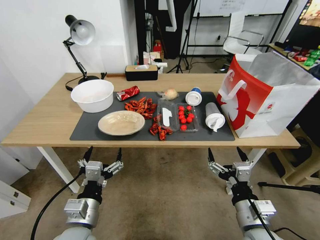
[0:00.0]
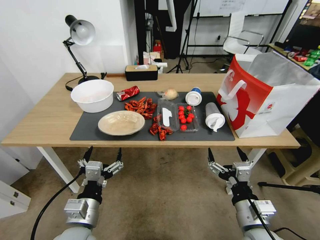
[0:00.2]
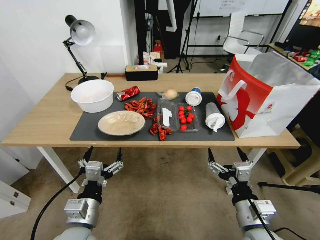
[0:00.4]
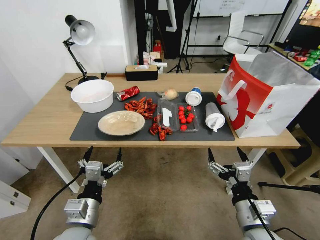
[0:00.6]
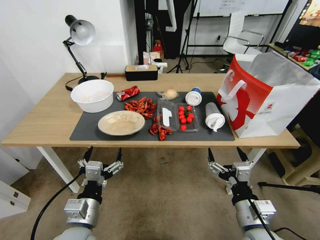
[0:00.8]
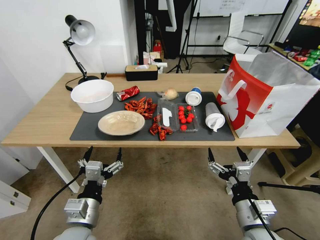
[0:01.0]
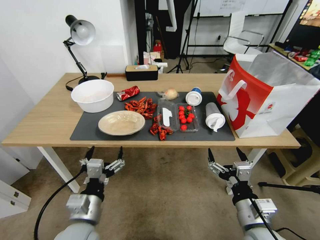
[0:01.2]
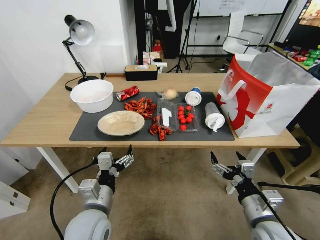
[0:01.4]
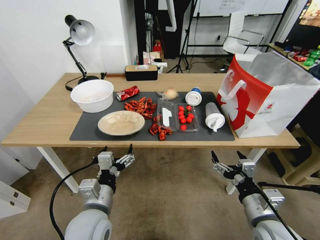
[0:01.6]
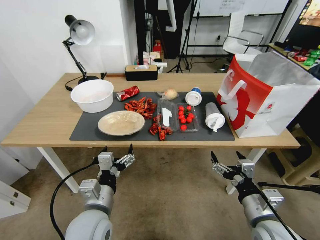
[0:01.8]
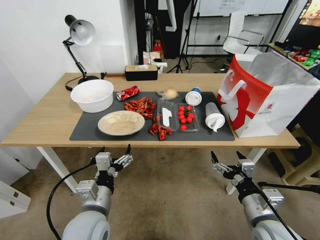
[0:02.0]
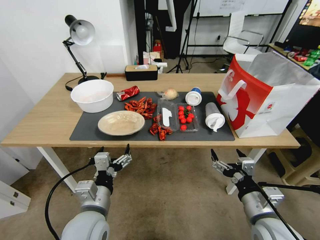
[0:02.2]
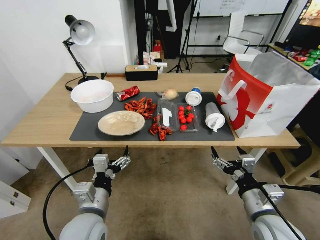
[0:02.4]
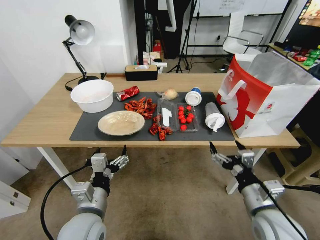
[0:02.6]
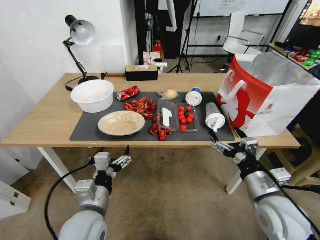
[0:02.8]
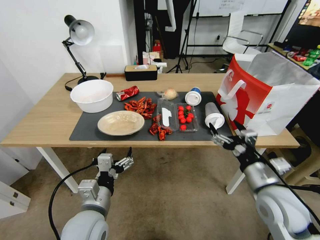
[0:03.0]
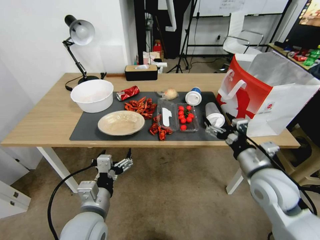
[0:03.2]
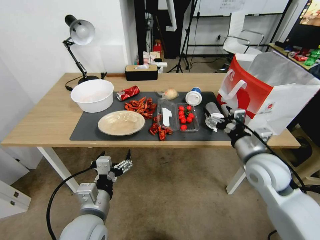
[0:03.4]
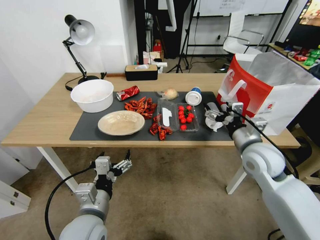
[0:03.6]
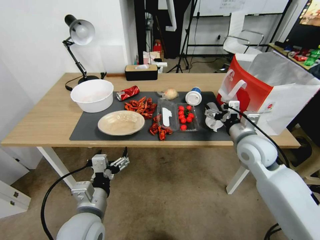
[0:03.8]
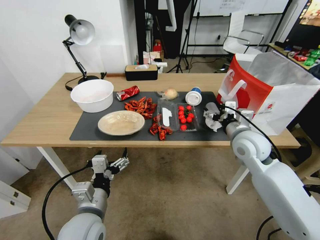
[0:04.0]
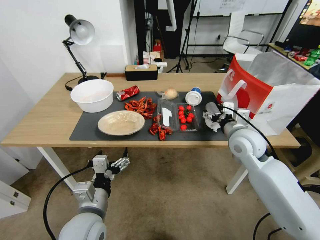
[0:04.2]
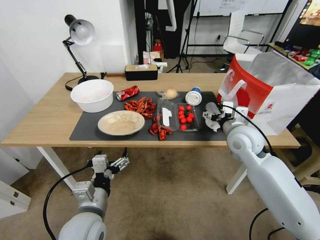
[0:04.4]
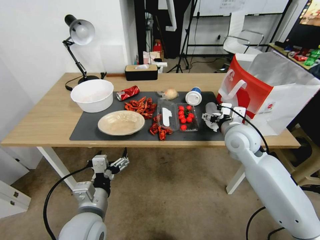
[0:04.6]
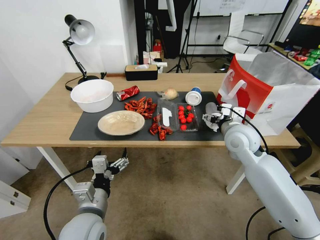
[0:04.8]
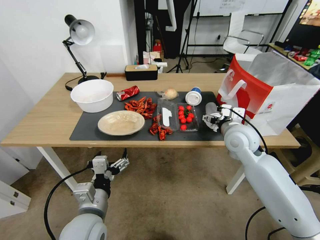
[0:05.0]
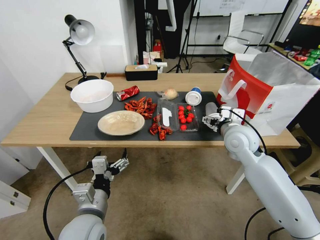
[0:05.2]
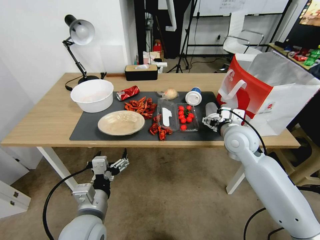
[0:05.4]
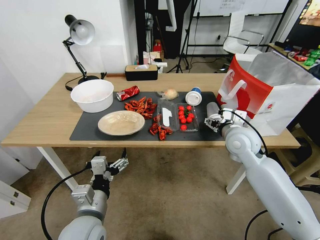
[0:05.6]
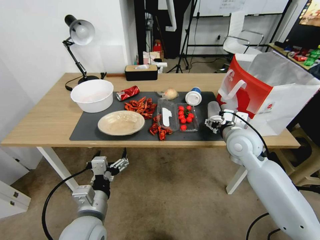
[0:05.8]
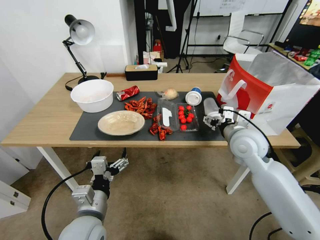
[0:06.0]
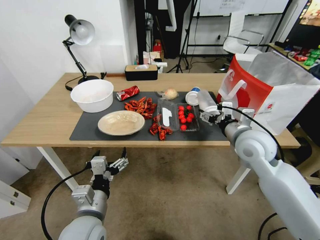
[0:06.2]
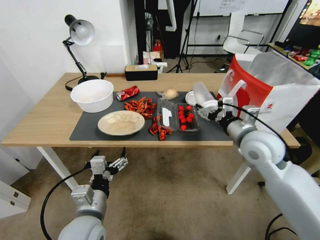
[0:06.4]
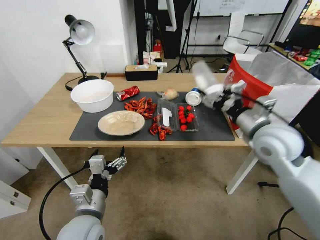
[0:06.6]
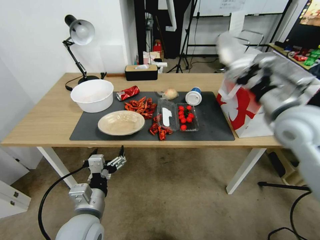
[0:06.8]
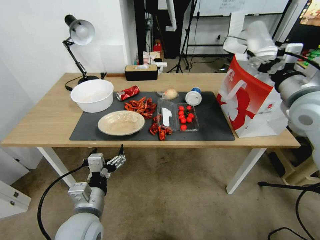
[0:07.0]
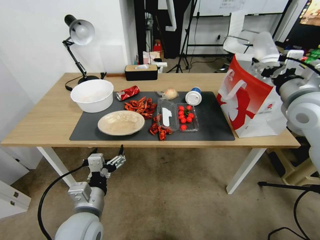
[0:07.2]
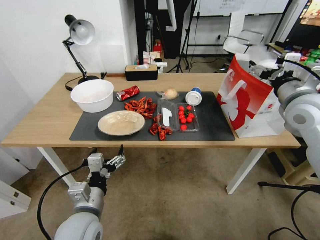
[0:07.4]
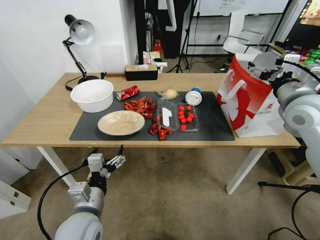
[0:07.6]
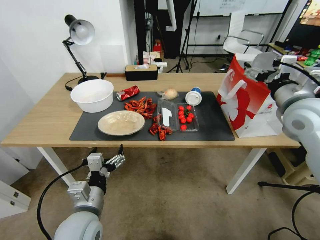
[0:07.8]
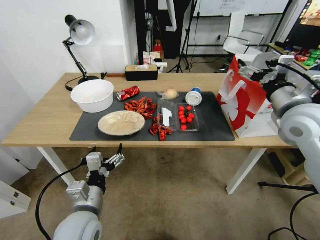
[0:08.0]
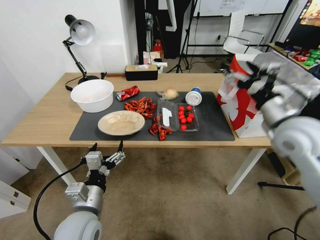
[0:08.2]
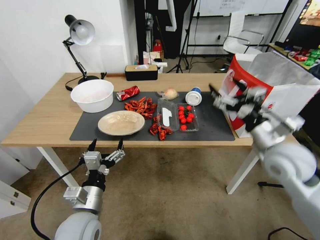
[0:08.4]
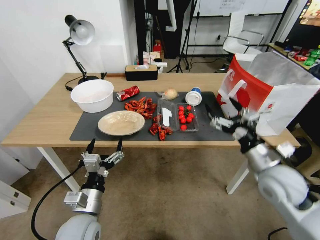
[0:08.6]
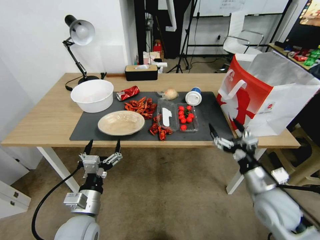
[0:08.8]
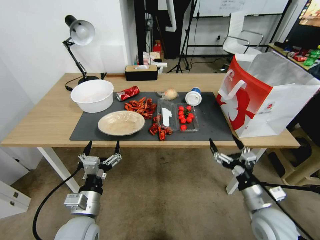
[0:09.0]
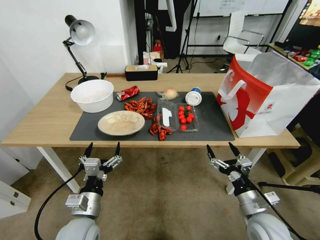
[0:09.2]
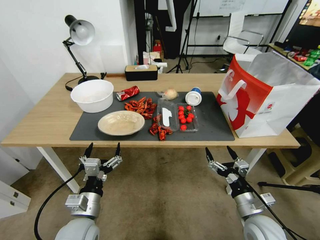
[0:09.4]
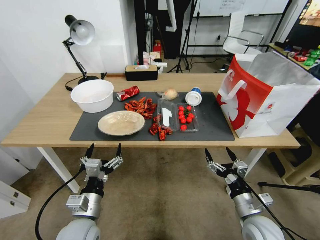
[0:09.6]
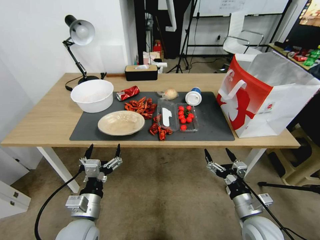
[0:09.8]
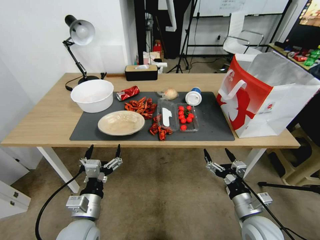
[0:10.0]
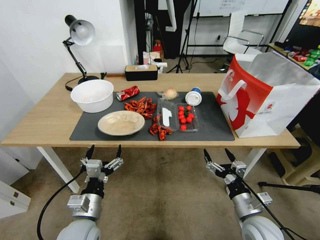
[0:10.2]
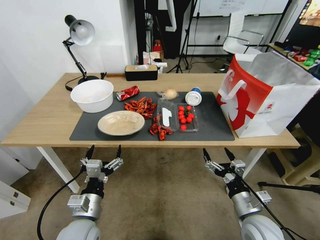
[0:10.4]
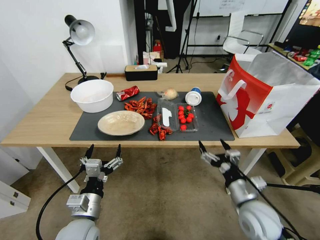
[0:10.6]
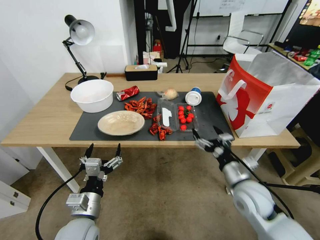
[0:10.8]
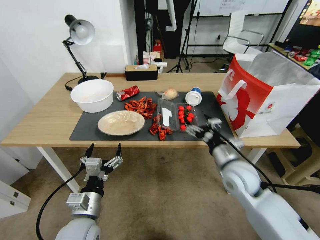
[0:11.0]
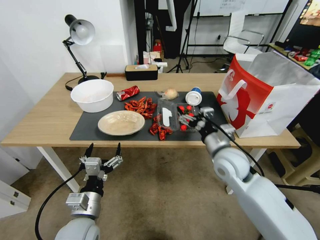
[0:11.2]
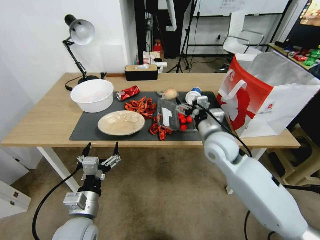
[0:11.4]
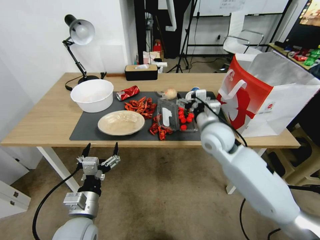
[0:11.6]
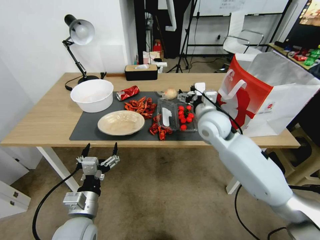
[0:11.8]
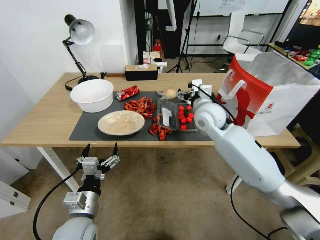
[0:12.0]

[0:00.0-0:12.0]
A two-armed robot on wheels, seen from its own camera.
0:01.6 to 0:03.0: The right gripper heads forward, covering about 5 cm.
0:03.0 to 0:04.4: The right gripper shifts about 15 cm forward.
0:04.4 to 0:06.0: The grippers move only a little.
0:06.0 to 0:07.6: The right gripper is displaced upward and to the right by approximately 15 cm.
0:07.6 to 0:09.0: The right gripper moves downward and backward, approximately 30 cm.
0:09.0 to 0:10.4: The grippers move only a little.
0:10.4 to 0:12.0: The right gripper moves forward, upward and to the left, approximately 35 cm.

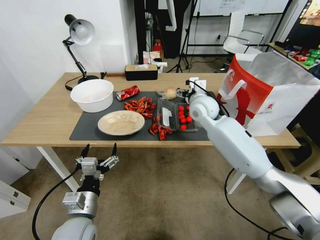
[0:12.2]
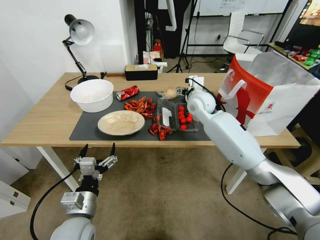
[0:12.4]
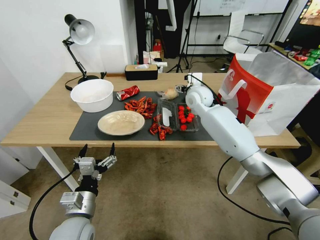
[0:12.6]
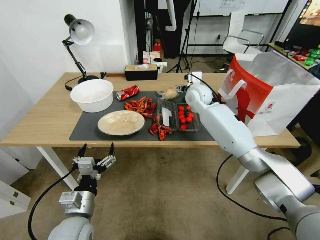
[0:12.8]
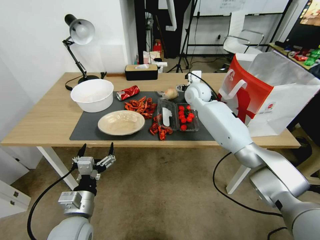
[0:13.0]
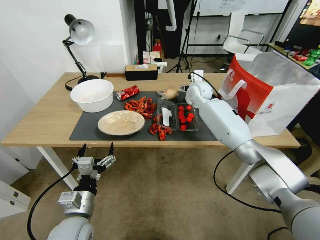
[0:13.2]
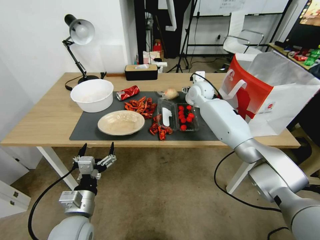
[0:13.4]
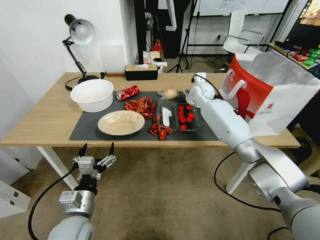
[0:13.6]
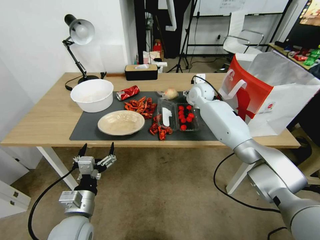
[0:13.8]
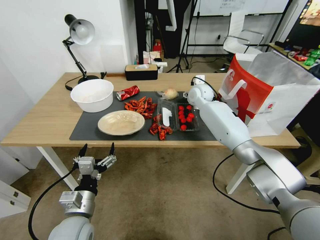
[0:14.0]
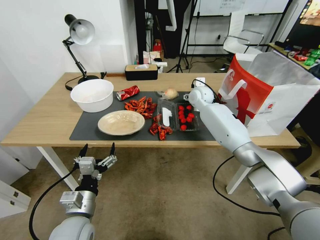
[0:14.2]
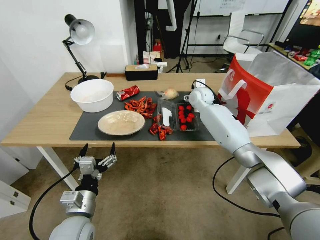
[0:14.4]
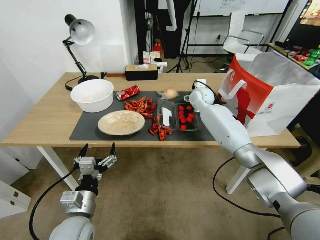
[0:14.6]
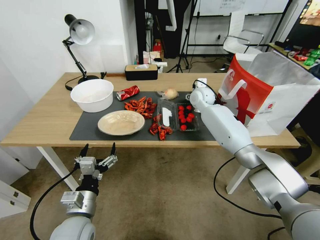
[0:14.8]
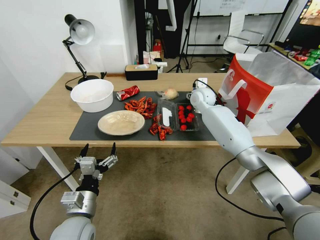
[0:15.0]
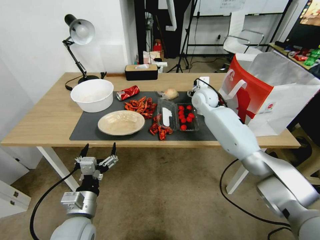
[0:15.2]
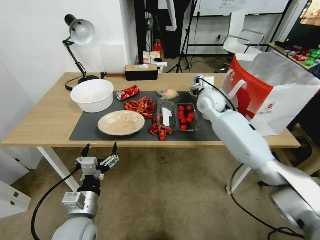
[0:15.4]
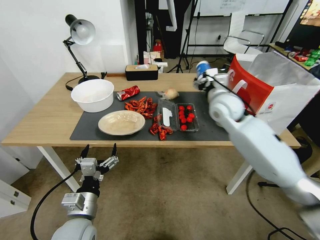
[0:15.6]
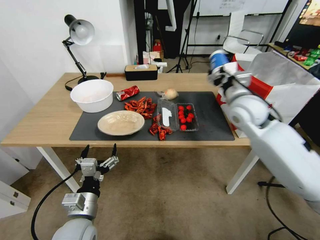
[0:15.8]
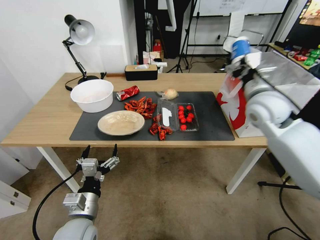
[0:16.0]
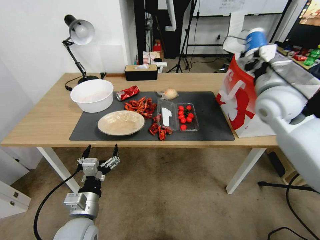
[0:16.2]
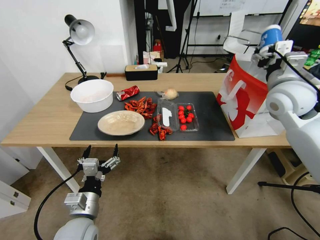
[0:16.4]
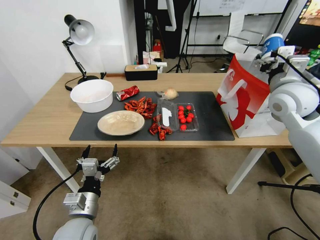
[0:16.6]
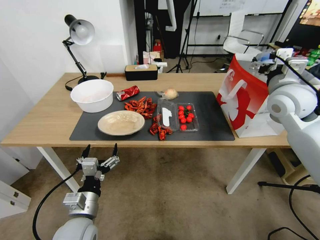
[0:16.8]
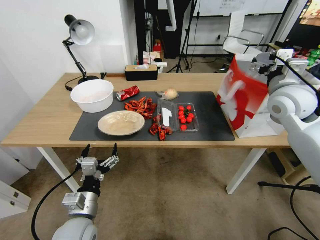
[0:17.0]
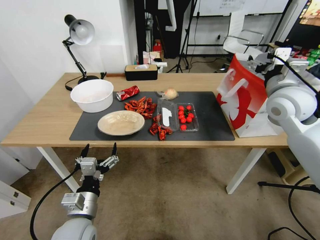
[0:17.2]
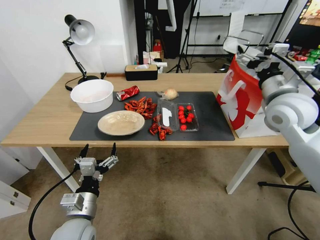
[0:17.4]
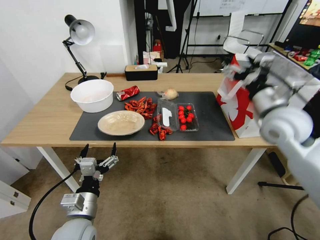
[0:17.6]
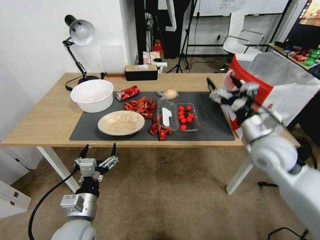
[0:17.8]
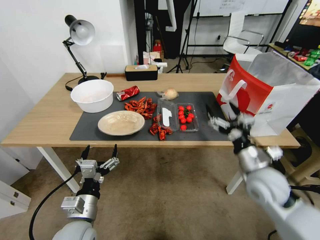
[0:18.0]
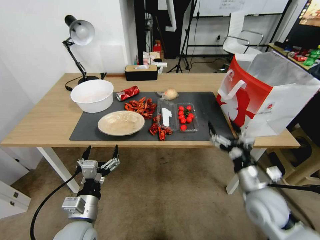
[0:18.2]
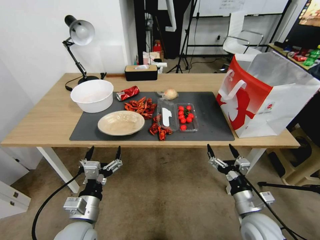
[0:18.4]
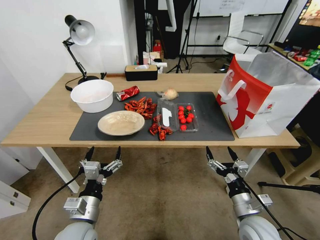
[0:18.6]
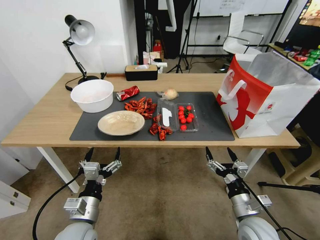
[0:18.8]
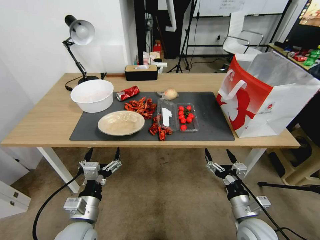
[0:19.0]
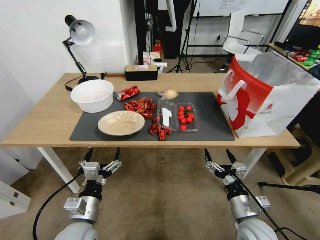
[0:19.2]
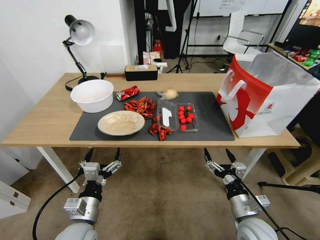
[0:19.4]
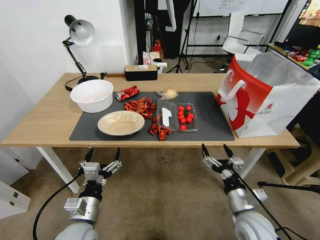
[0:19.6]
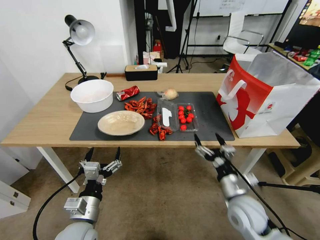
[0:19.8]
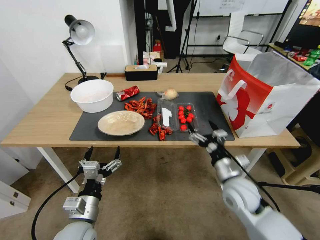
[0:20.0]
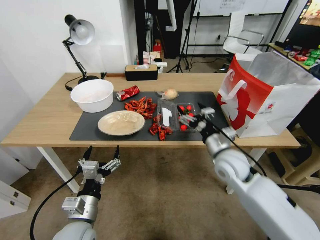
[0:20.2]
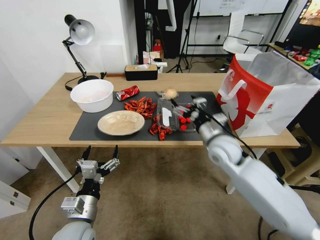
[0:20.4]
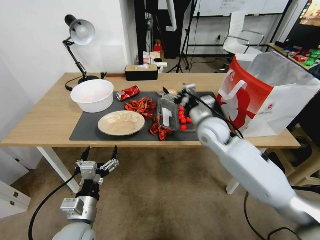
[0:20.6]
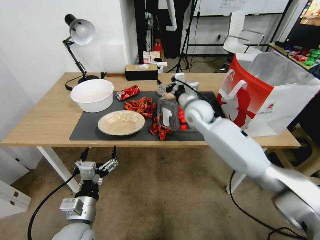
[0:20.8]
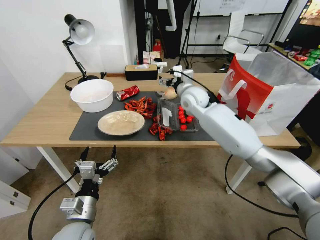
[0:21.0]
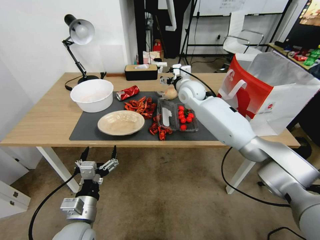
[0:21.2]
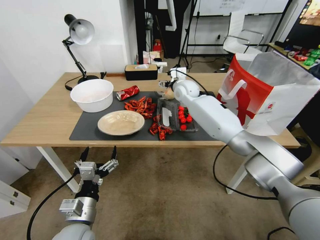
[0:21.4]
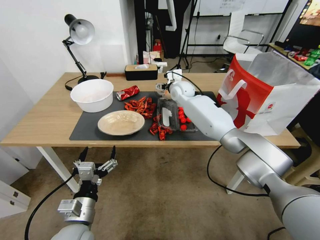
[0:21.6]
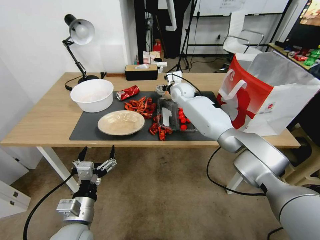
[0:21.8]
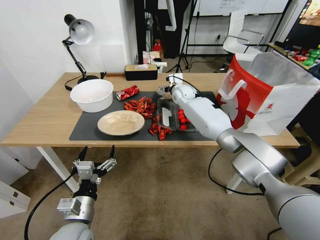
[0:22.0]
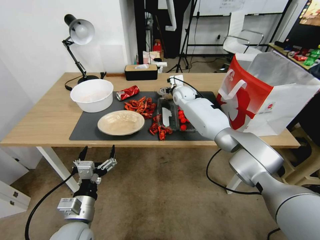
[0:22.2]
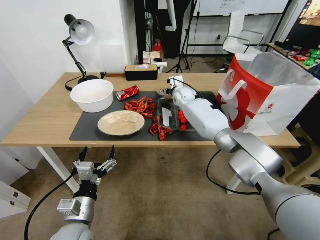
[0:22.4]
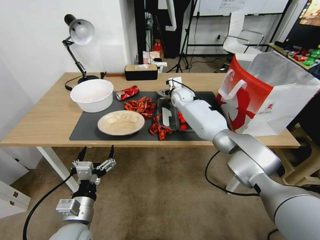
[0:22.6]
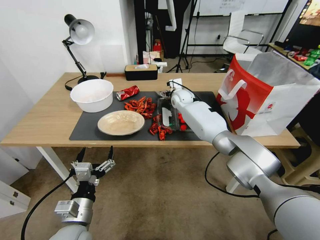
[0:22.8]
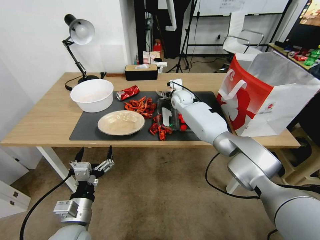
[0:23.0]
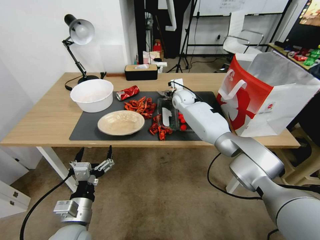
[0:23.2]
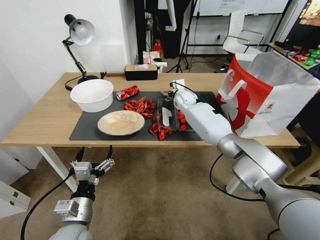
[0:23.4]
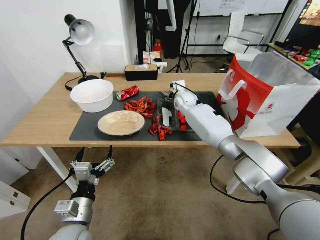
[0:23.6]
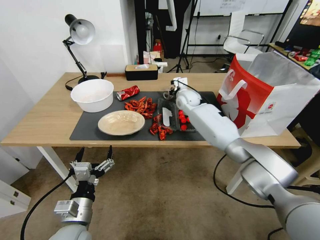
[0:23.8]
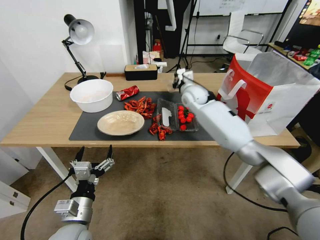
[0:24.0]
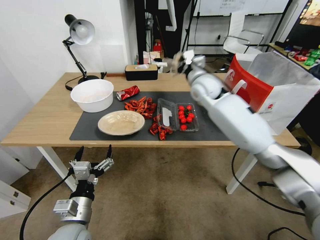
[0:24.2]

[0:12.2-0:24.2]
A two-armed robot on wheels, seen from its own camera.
0:12.2 to 0:13.8: The right gripper travels forward by roughly 10 cm.
0:13.8 to 0:15.2: There are only small adjustments of the grippers.
0:15.2 to 0:16.6: The right gripper is displaced to the right, backward and upward by roughly 25 cm.
0:16.6 to 0:18.2: The right gripper goes roughly 30 cm downward and backward.
0:19.8 to 0:21.2: The right gripper is displaced forward and upward by some 40 cm.
0:21.2 to 0:22.6: The right gripper travels downward and forward by approximately 10 cm.
0:22.6 to 0:24.2: The right gripper moves upward, backward and to the right, approximately 20 cm, and closes up.
